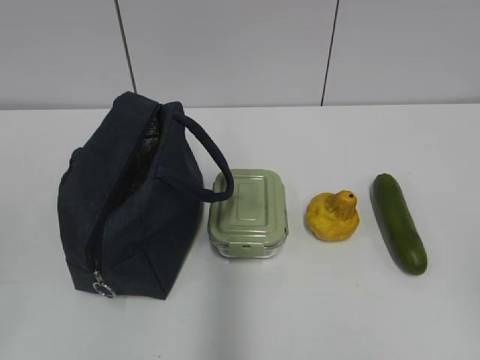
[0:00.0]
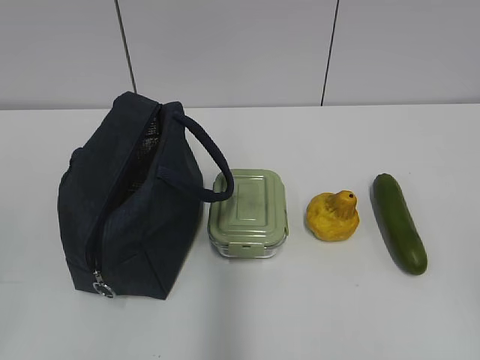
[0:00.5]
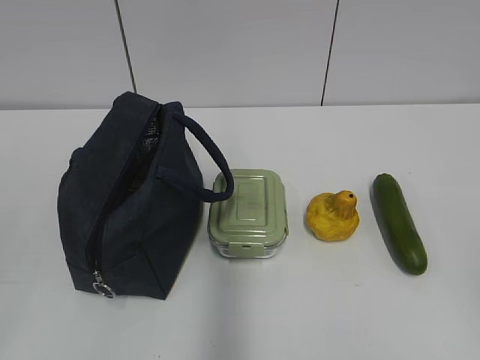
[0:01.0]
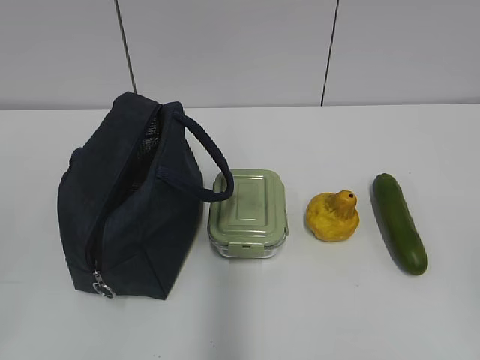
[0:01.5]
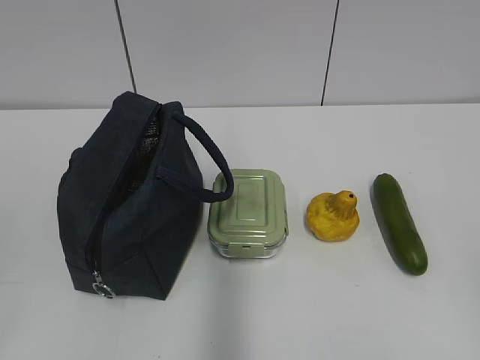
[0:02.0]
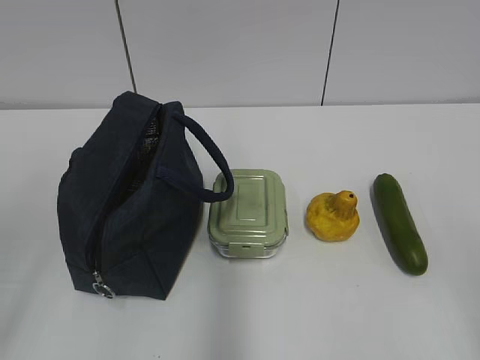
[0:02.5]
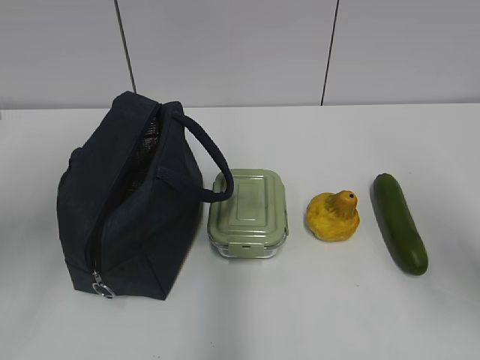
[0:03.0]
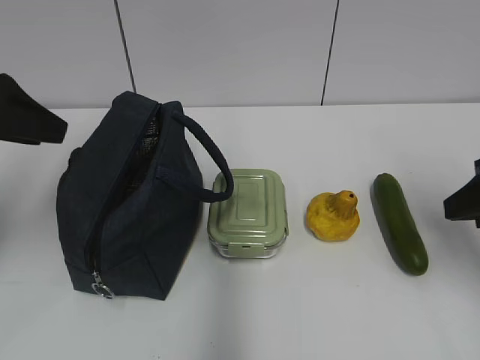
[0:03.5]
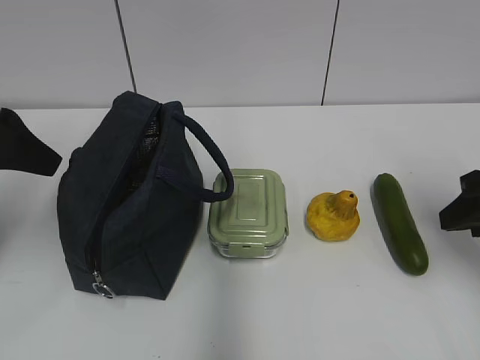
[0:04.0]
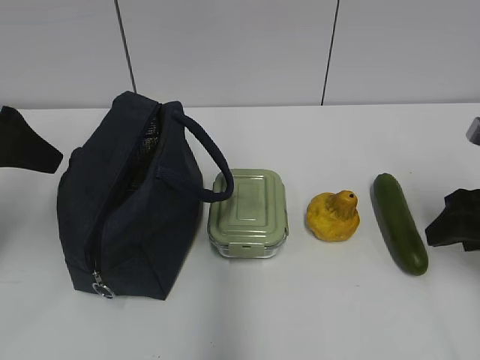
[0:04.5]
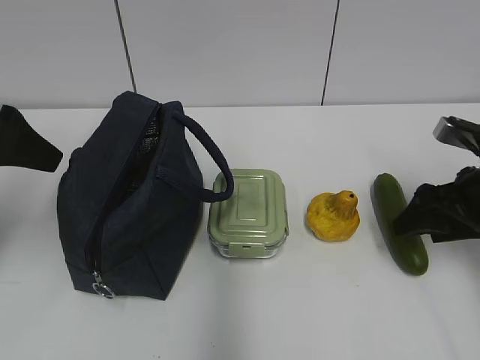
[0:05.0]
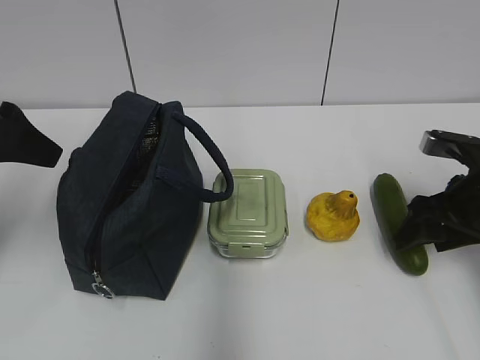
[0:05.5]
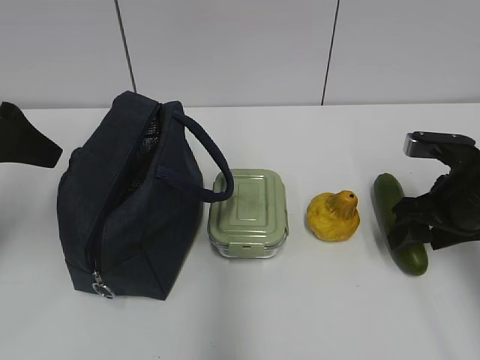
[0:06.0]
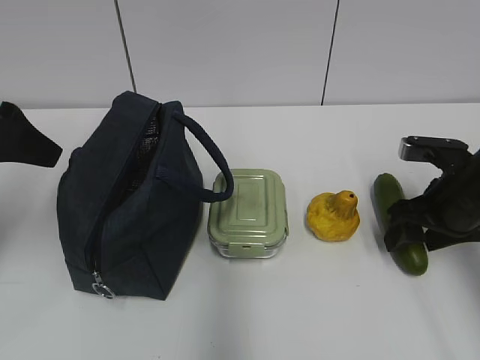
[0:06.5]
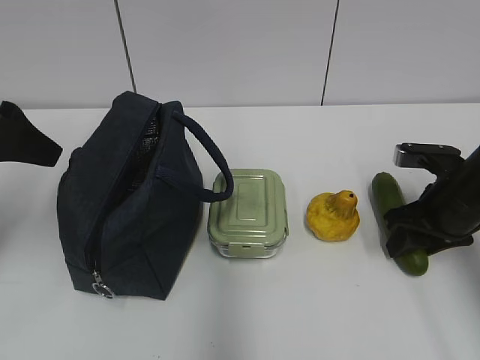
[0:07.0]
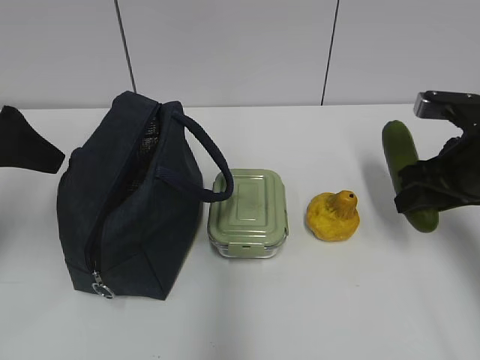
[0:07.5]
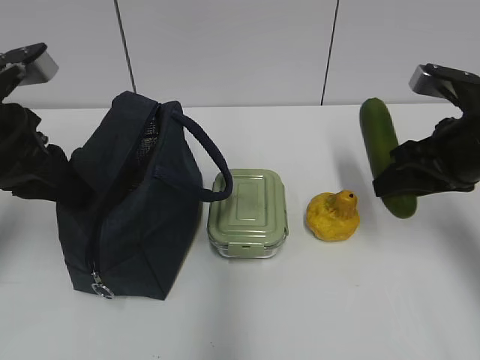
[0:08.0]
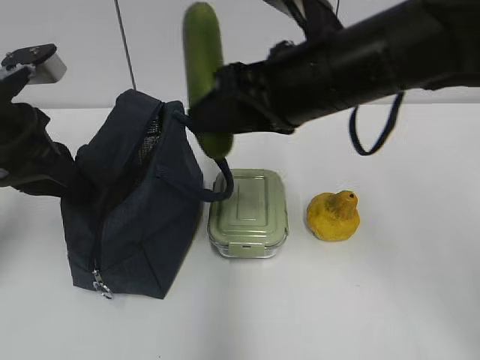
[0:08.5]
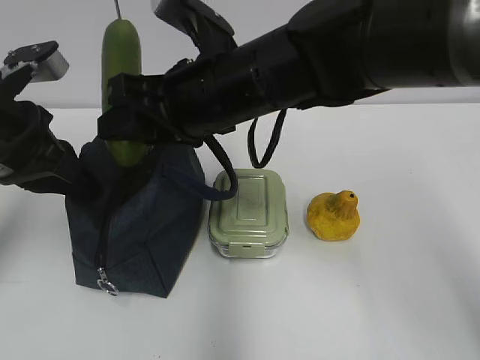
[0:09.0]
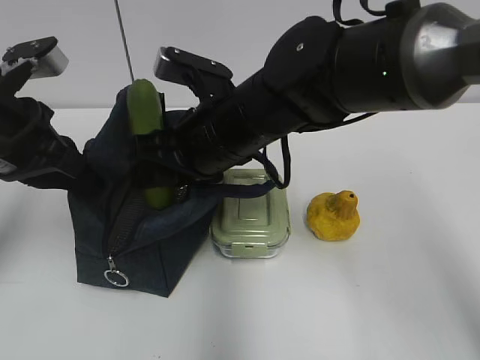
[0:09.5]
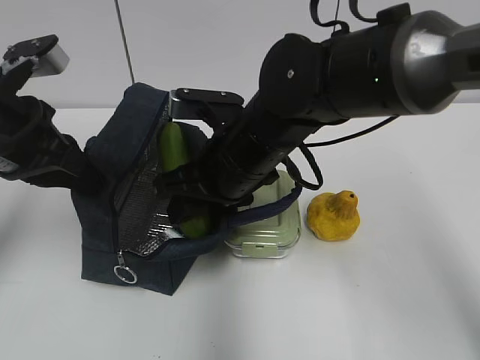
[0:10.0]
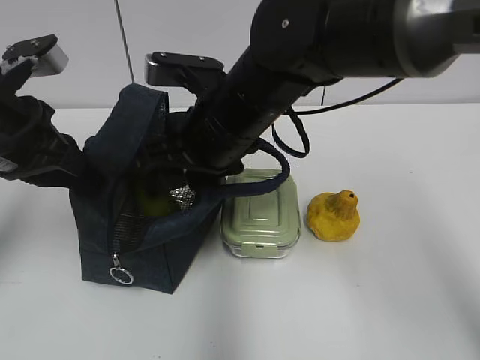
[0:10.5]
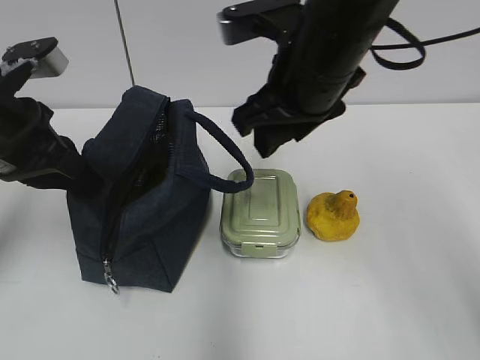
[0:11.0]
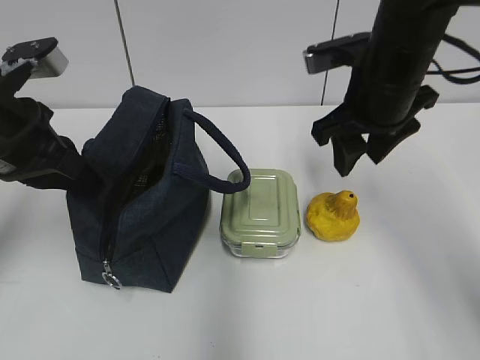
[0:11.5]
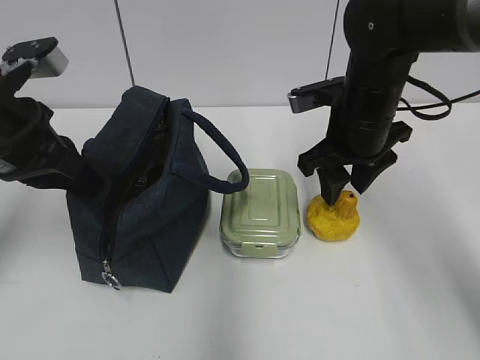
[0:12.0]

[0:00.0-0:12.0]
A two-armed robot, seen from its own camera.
0:02.0 to 0:04.0: Both grippers travel together forward, about 25 cm.
0:04.0 to 0:06.0: The right gripper travels downward and forward by roughly 10 cm.
0:06.0 to 0:08.0: The right gripper heads upward, covering some 5 cm, and closes up; the left gripper closes its fingers.
0:08.0 to 0:10.0: The left gripper closes, while the right gripper travels to the left by about 25 cm.
0:10.0 to 0:12.0: The right gripper shifts roughly 15 cm to the right and forward.

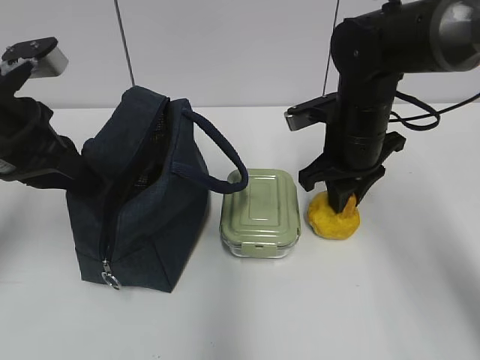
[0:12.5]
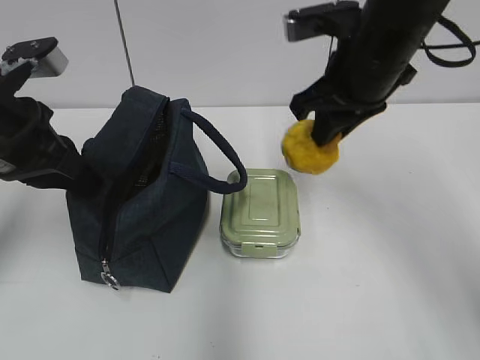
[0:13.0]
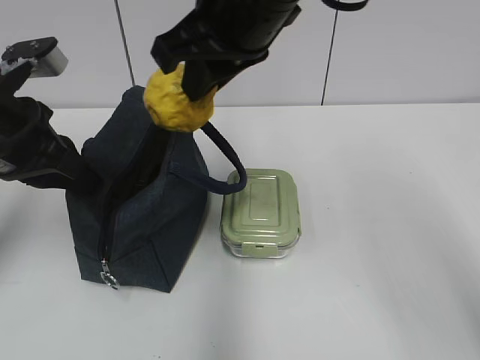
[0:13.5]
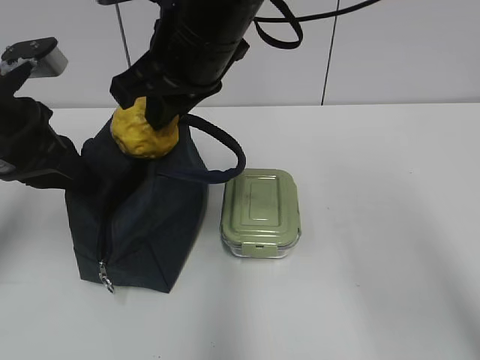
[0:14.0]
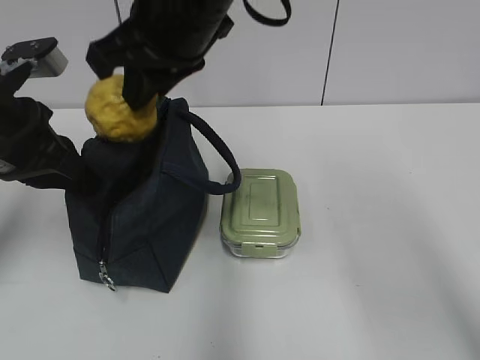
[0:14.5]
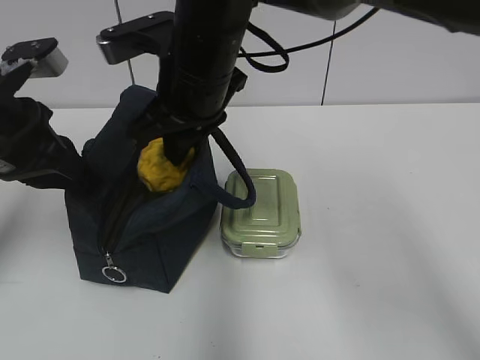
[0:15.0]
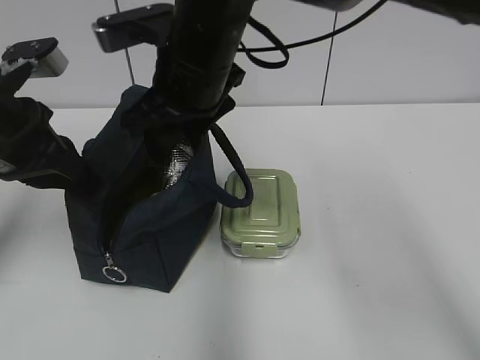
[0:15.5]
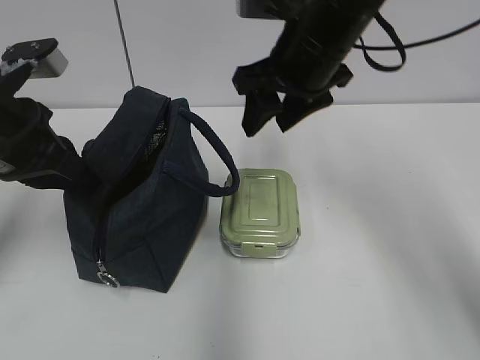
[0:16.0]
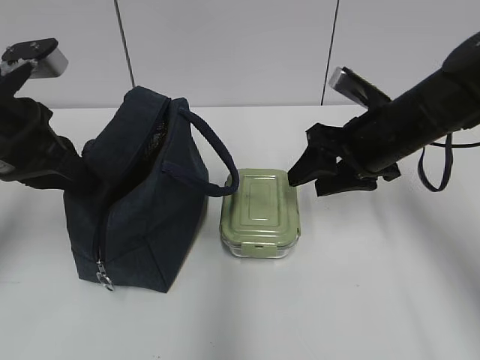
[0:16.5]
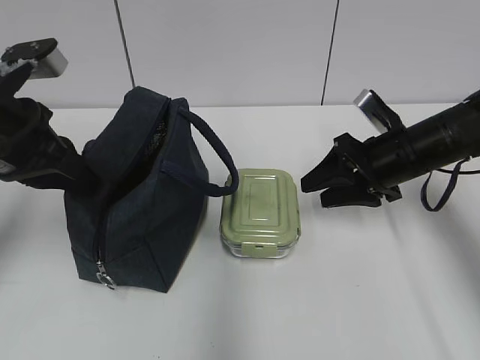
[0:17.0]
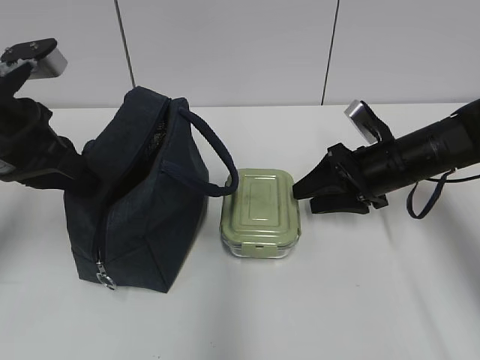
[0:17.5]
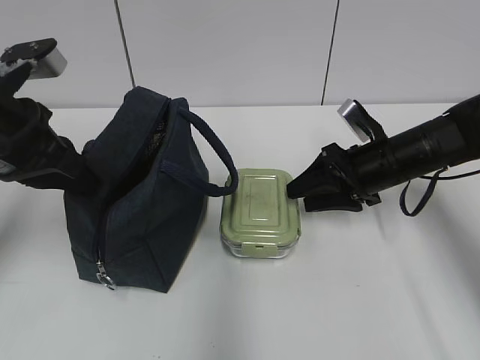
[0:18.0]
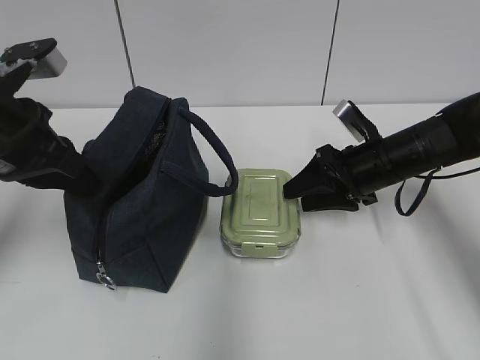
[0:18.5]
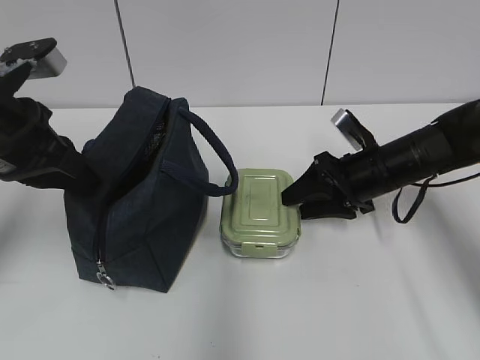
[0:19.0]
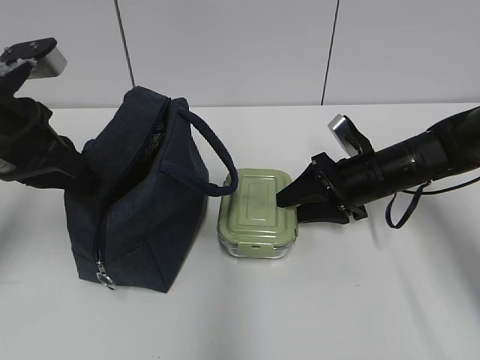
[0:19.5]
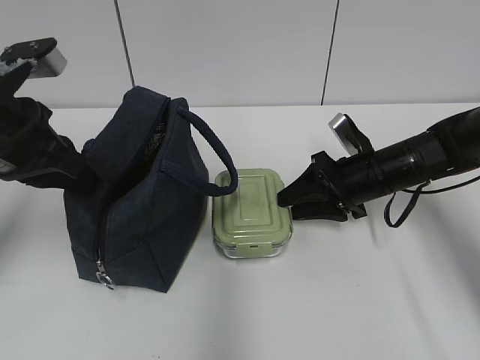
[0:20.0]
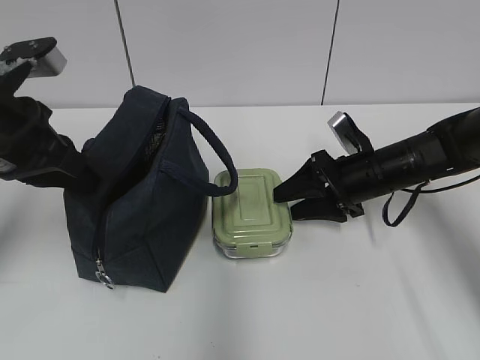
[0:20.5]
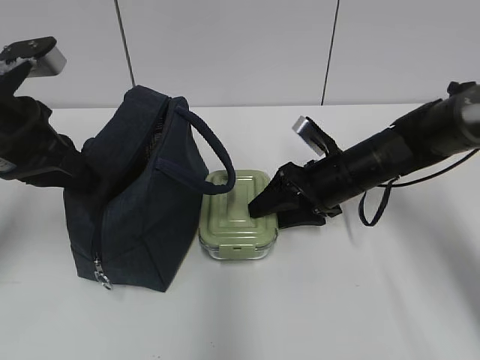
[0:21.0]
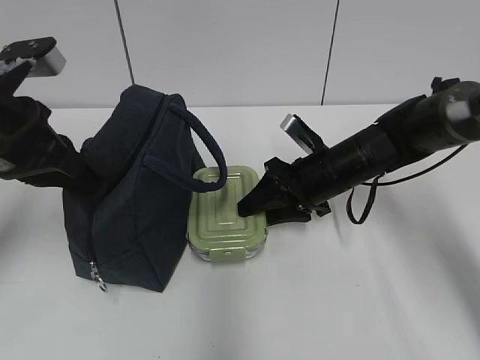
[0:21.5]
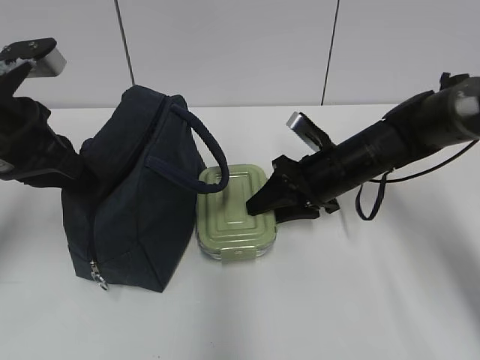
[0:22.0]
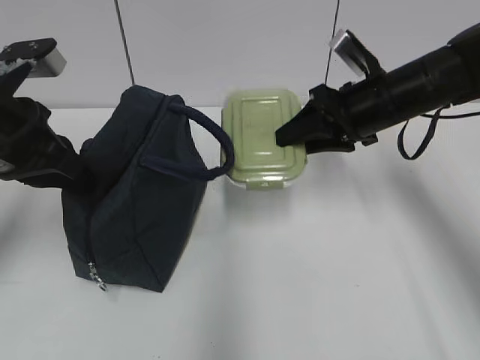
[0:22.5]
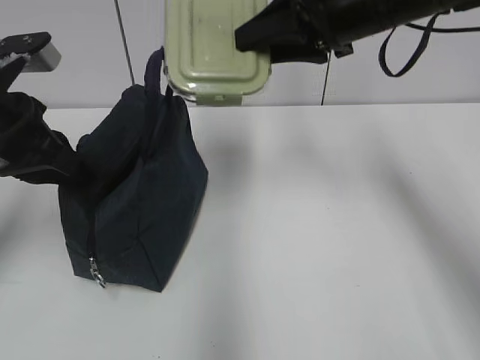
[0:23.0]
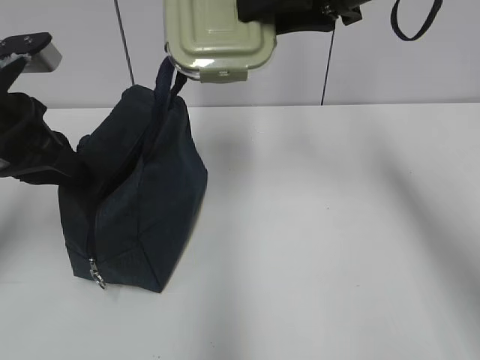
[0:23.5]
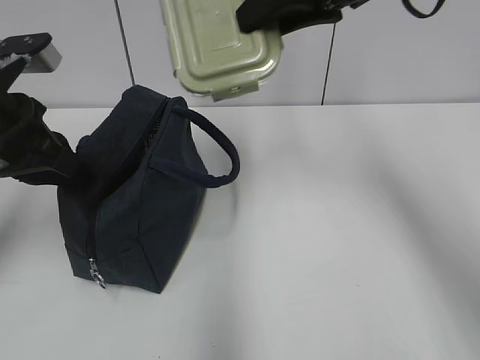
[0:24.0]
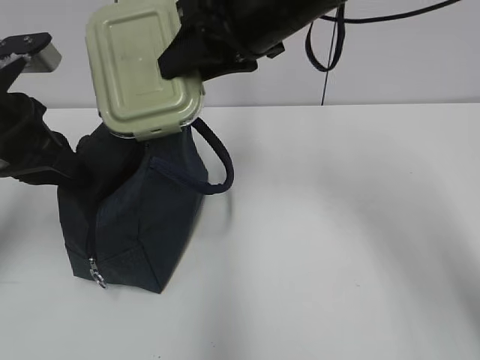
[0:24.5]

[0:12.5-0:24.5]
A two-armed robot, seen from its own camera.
0:12.5 to 0:14.5: The right gripper heads to the left and upward, covering about 25 cm.
0:14.5 to 0:16.5: The right gripper is displaced to the right and downward by roughly 25 cm, and opens.
0:16.5 to 0:18.5: The right gripper moves downward, some 5 cm.
0:18.5 to 0:20.5: There are only small adjustments of the grippers.
0:20.5 to 0:22.5: The right gripper goes roughly 10 cm upward.
0:22.5 to 0:24.5: The right gripper goes approximately 15 cm to the left and upward.

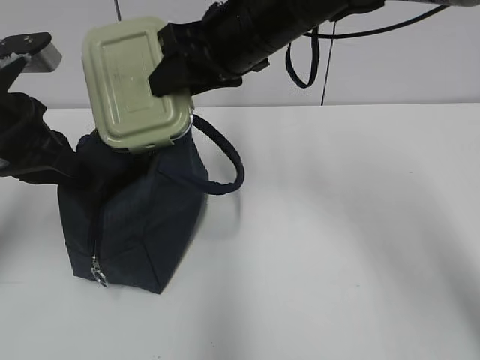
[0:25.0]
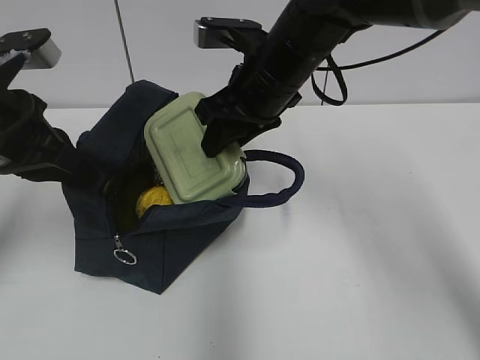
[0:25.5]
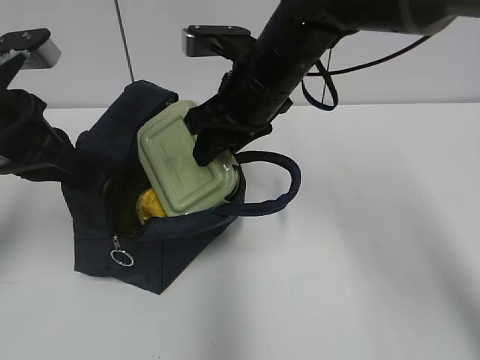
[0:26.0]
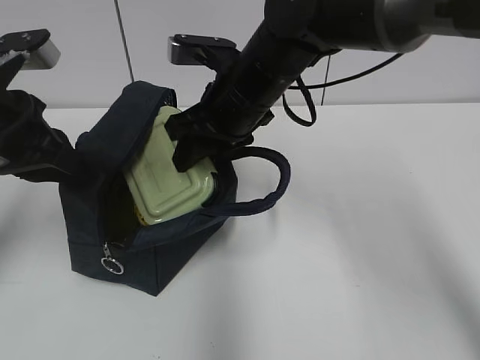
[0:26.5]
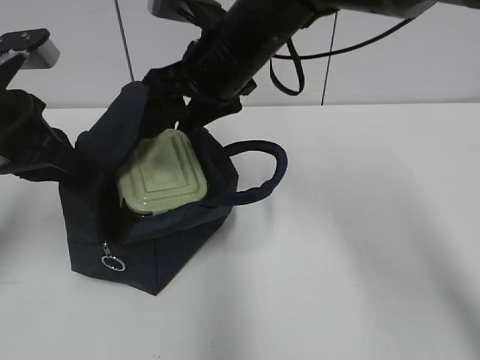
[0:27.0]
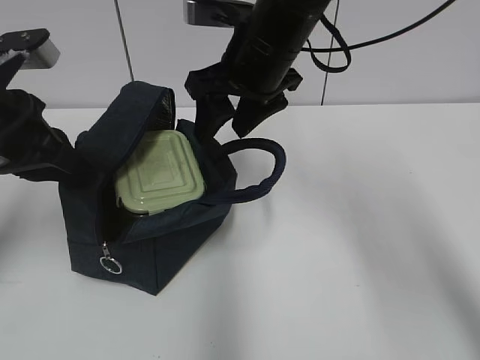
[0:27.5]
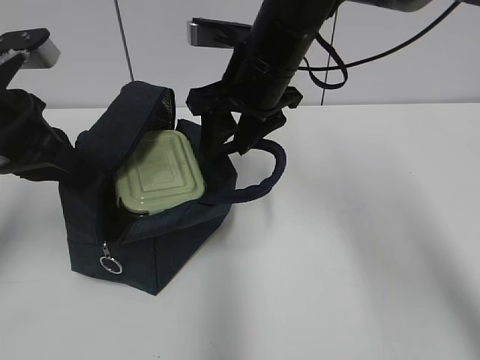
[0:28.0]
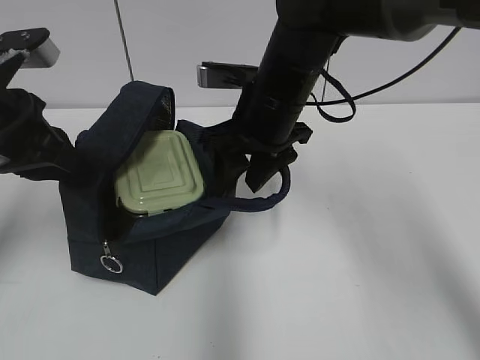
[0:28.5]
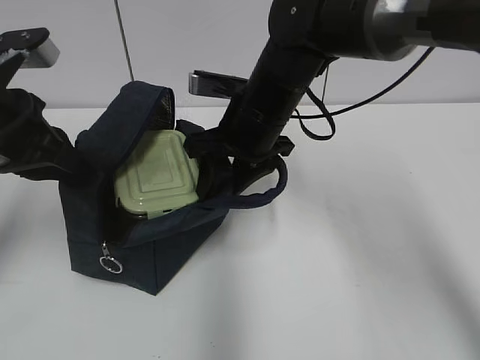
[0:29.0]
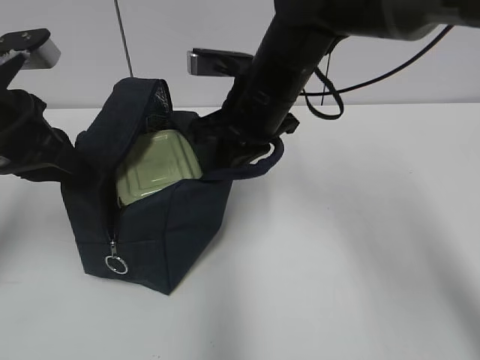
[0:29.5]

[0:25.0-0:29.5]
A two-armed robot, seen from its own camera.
0:25.0 to 0:27.0: The right gripper opens its fingers.
0:27.0 to 0:29.5: The right gripper ends up some 5 cm from where it was, and closes.
